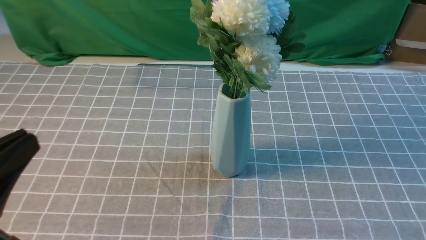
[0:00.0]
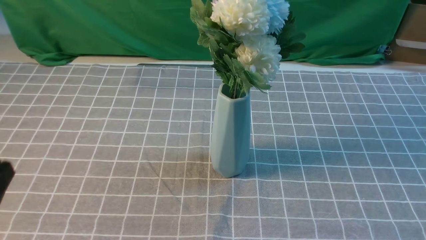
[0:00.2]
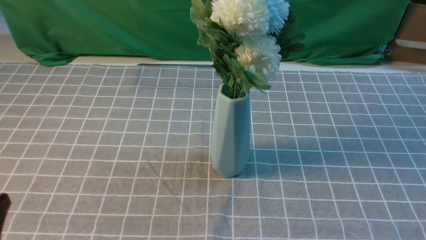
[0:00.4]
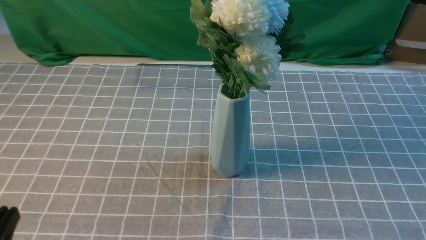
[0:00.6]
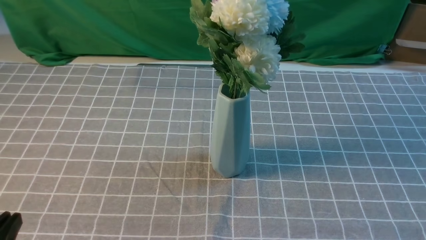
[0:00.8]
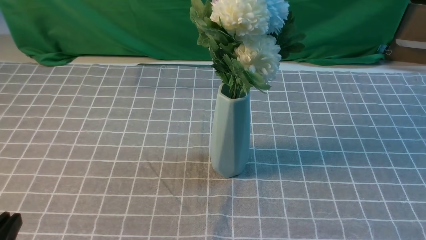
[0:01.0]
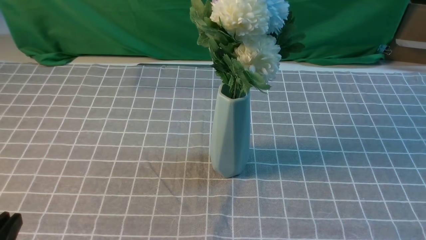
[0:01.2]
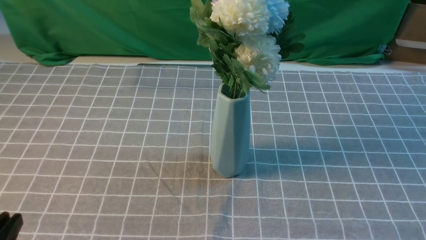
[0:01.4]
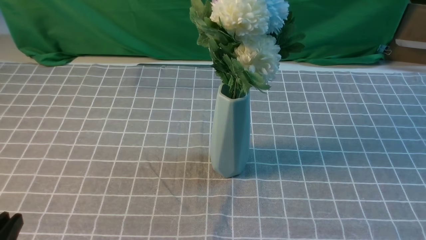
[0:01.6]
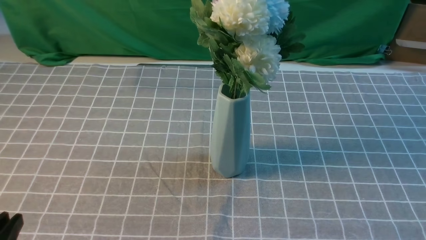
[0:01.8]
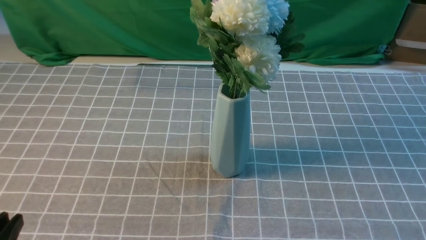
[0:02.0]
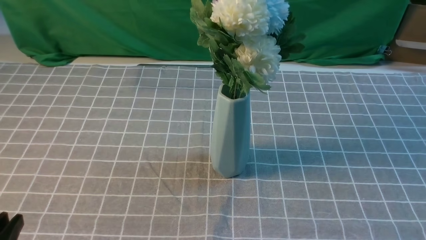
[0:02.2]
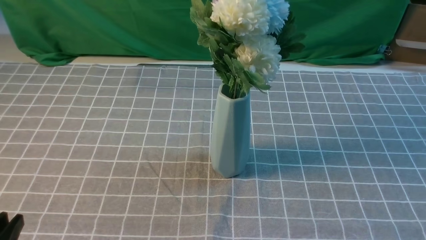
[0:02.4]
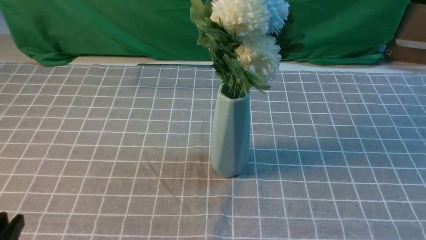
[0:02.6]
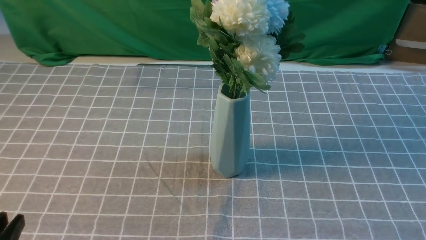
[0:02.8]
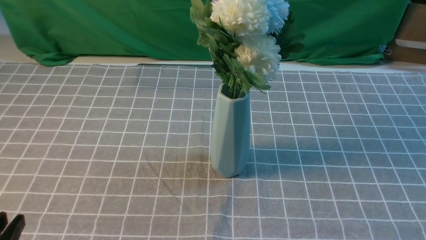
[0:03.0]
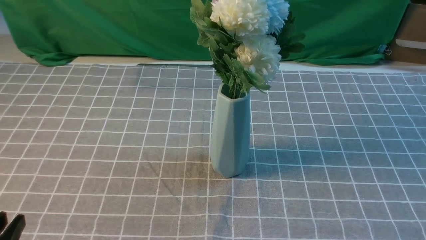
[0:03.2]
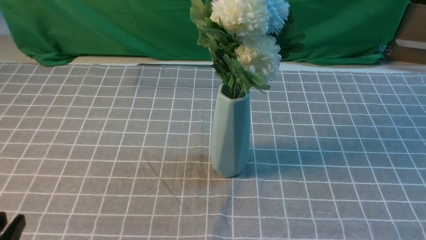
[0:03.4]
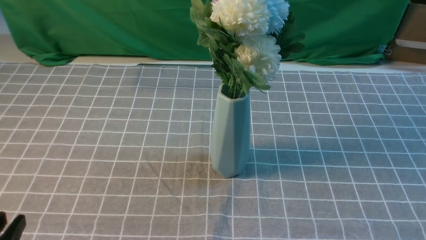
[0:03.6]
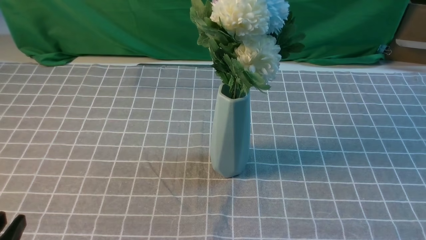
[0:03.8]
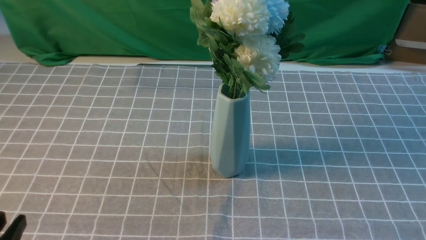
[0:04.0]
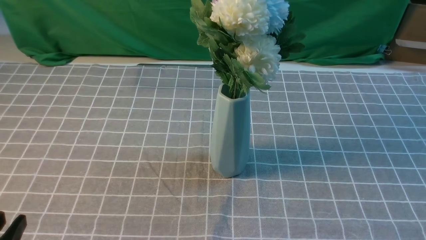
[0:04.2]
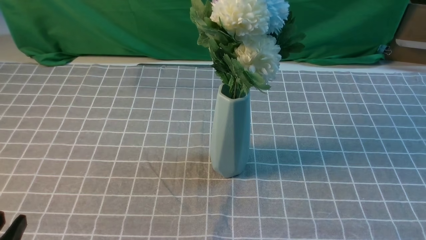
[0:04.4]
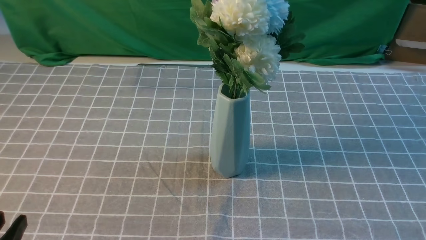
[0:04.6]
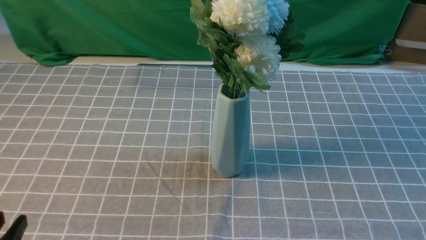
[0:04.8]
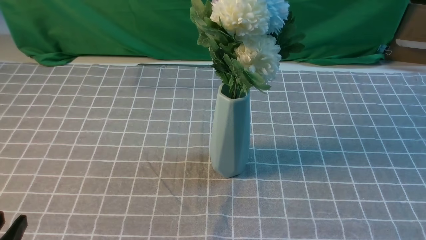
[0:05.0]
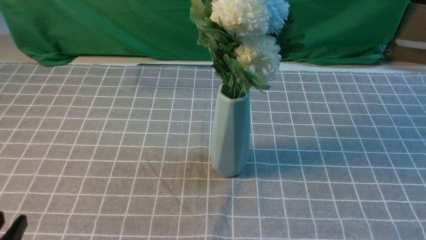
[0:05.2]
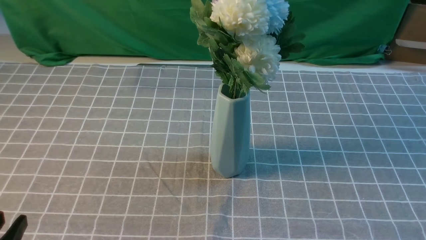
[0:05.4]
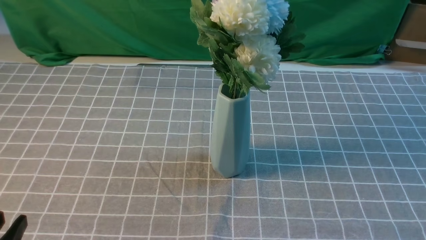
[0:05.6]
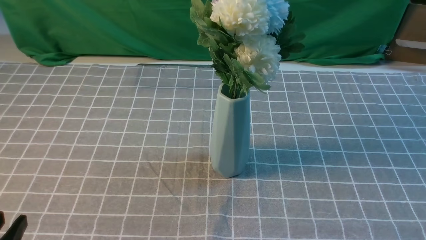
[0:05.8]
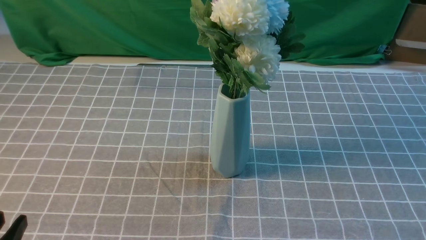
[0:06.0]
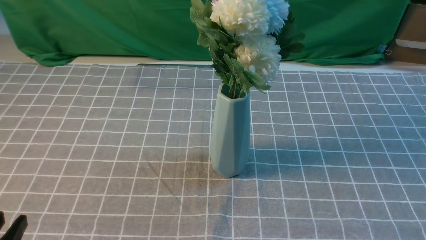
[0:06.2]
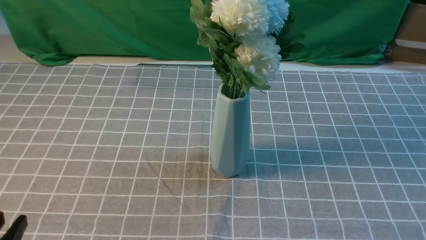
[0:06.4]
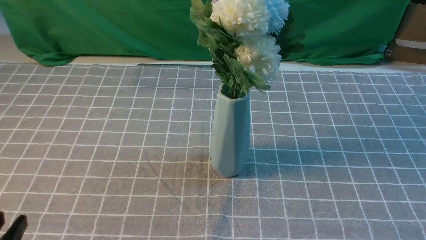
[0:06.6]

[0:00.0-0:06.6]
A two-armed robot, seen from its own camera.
Task of the whole recording: insert the flowers into the vase on the table with the grey tablecloth.
0:00.0 to 0:01.6: The left gripper is displaced downward by about 10 cm.
0:05.0 to 0:06.6: The two grippers keep their place.

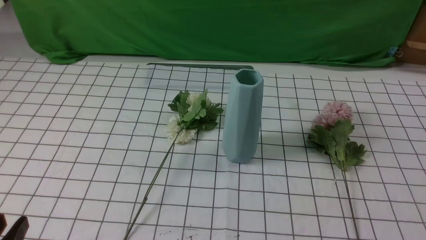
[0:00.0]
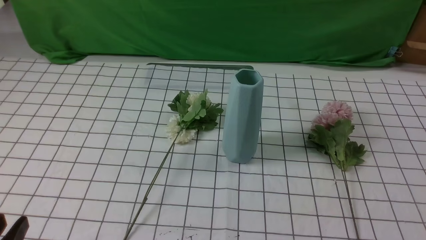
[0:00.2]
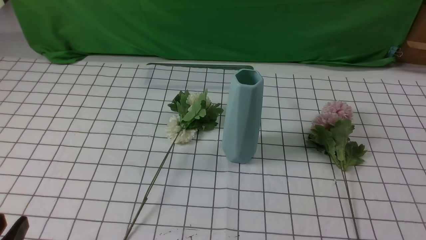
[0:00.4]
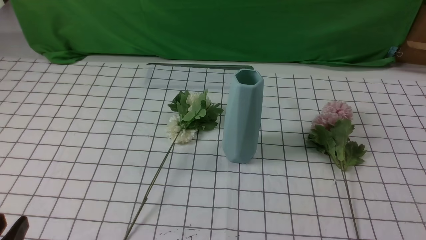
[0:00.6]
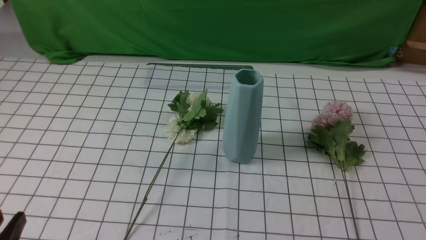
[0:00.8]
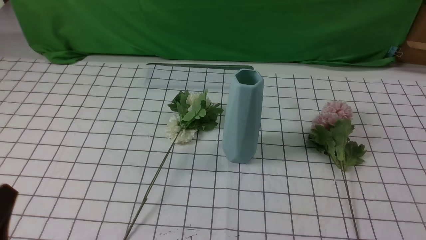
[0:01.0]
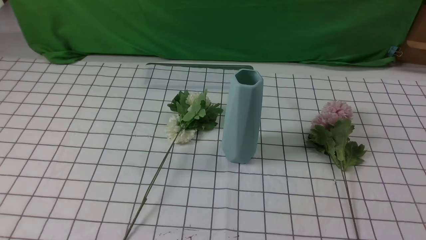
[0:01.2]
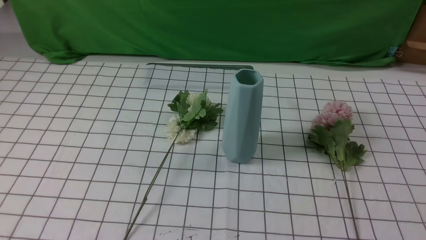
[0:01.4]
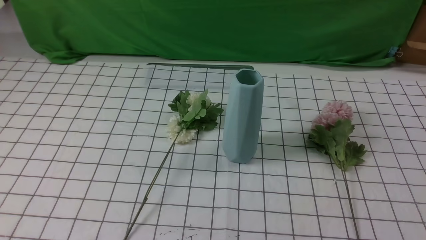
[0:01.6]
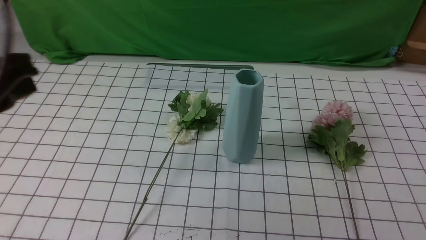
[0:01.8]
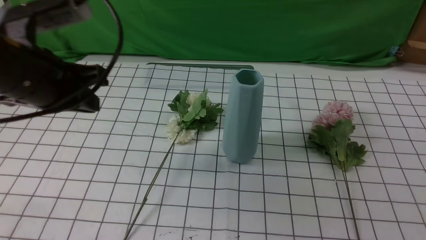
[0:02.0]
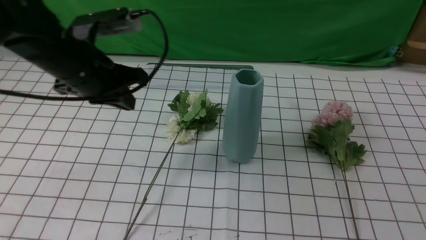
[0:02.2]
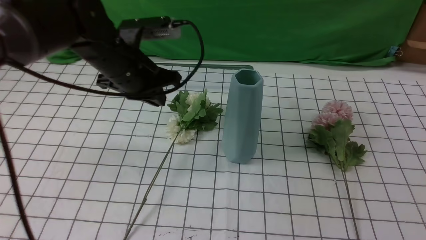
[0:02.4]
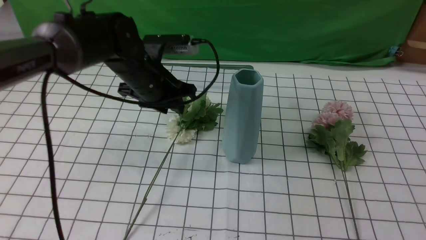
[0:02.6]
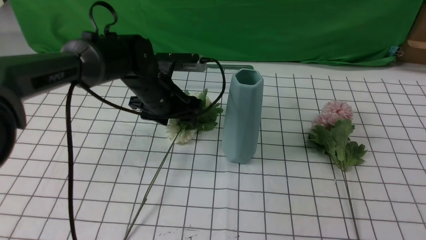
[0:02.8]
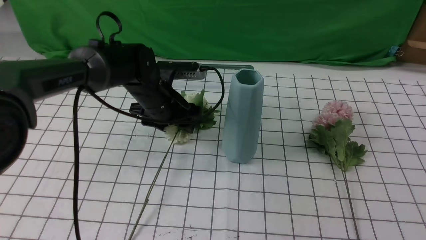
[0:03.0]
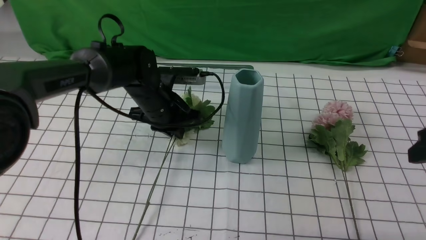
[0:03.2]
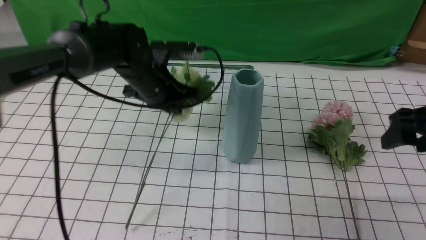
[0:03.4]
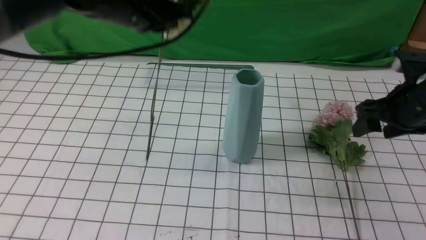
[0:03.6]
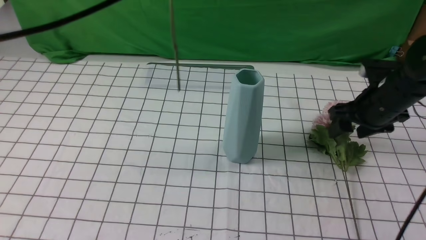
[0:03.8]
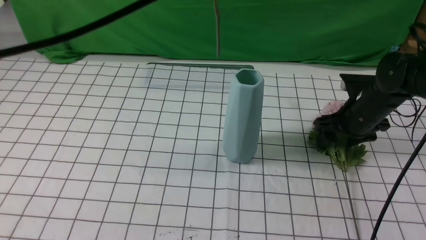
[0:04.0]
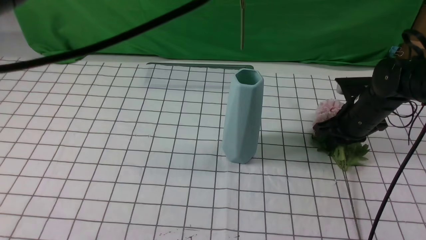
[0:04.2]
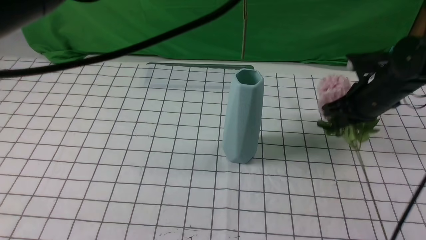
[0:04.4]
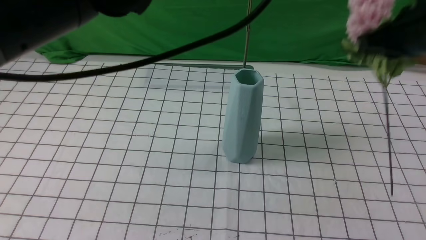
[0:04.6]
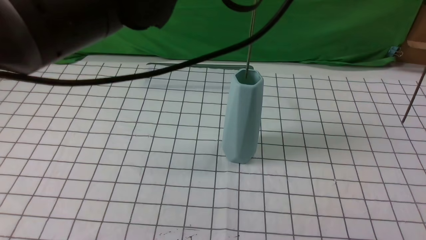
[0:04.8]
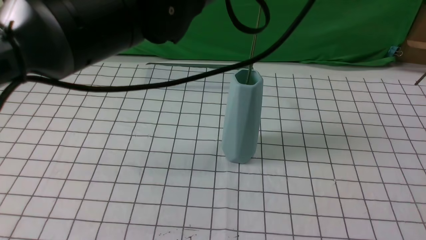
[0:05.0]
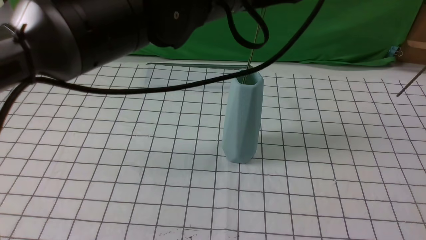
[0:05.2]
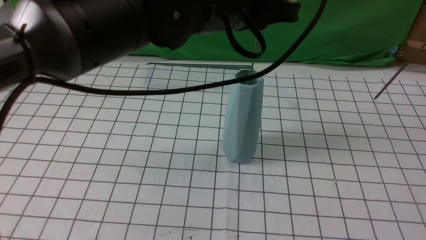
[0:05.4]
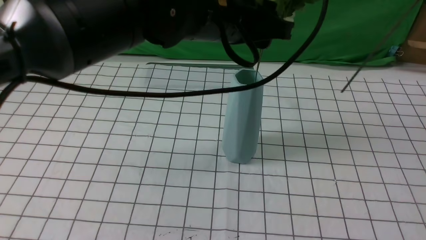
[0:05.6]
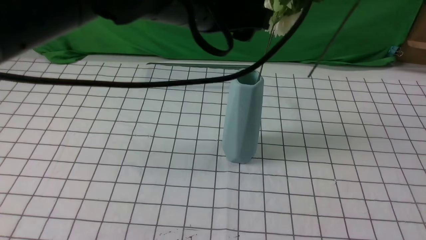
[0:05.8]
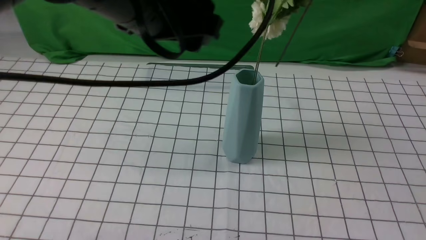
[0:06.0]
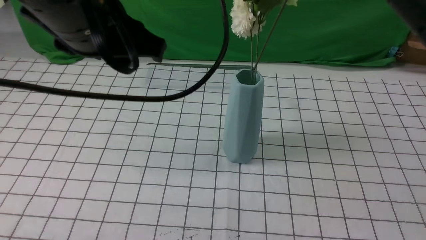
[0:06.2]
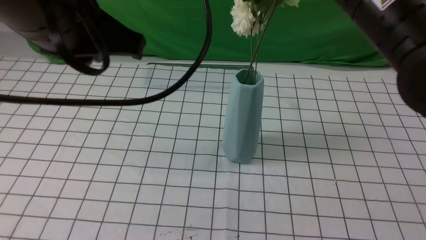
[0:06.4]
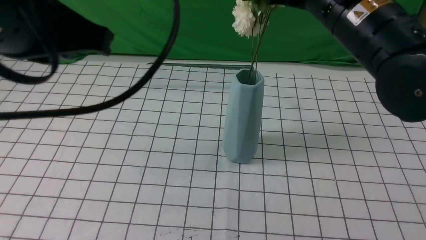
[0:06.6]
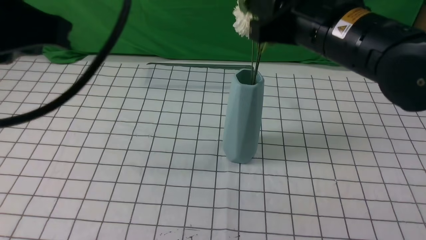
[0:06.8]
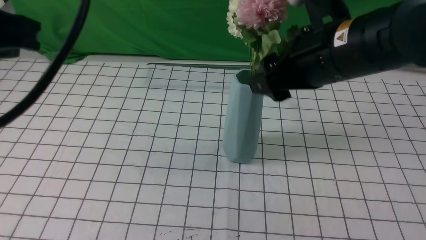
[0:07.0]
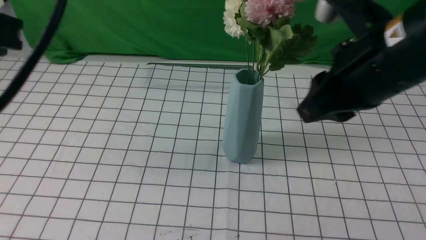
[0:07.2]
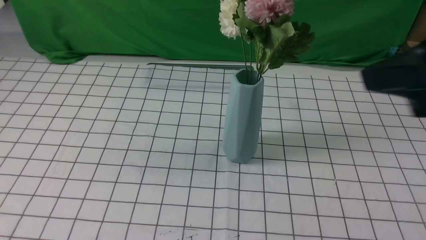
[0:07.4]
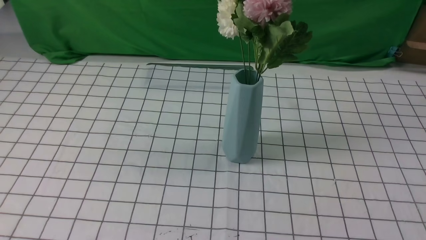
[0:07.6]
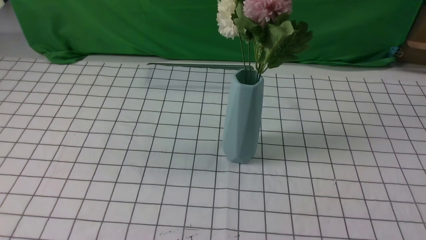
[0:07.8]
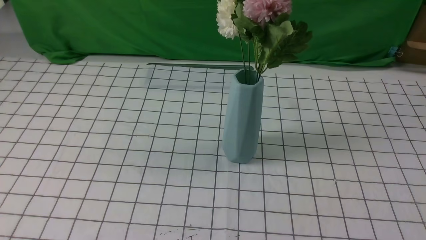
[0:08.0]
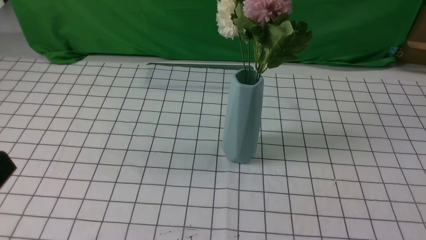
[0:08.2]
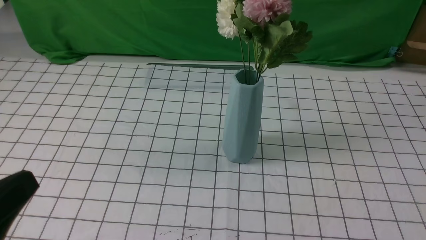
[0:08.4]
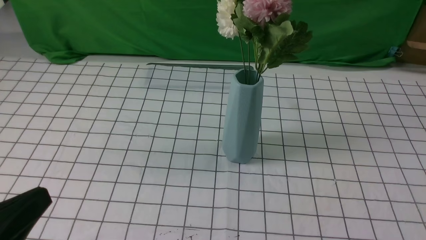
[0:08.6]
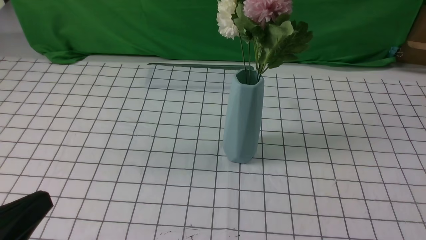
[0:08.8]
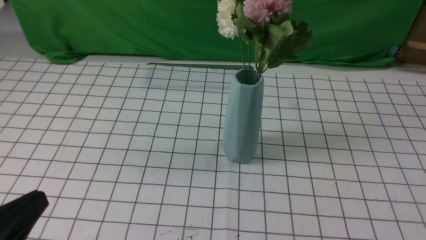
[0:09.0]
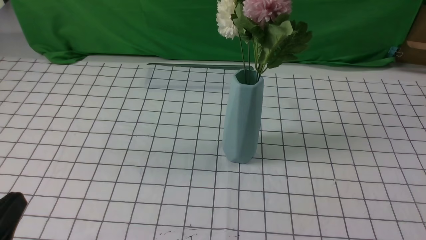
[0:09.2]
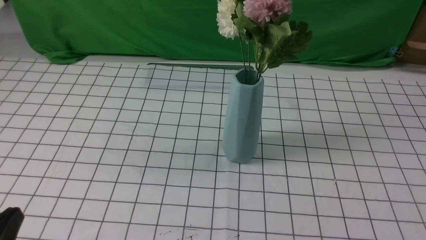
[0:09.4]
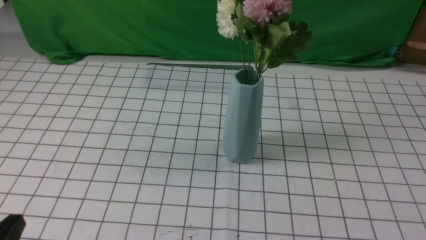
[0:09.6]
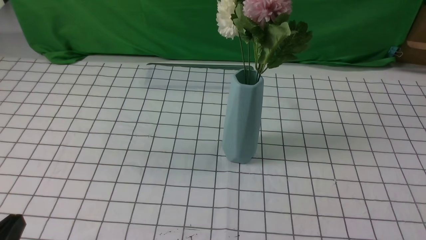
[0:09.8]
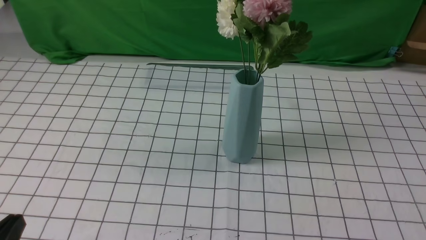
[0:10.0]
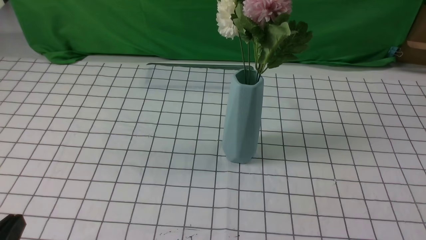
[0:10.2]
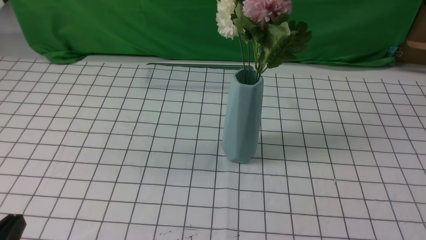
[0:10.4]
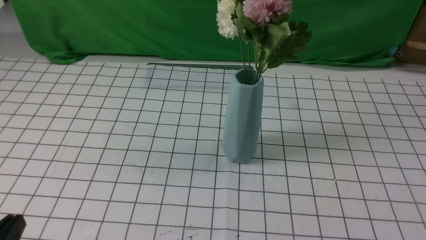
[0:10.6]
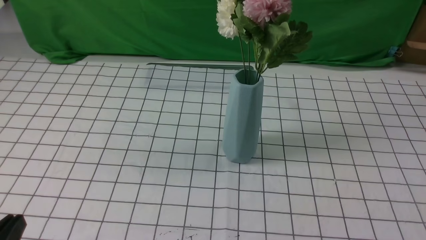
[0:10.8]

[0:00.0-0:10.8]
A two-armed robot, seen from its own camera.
Task of the whole recording: insert the flowers into the vase on the table with the white tablecloth.
Step, 0:00.0 to 0:07.2: Put the flowers in the vase with both hands.
0:01.6 to 0:03.0: The right gripper shifts some 15 cm forward and upward, and opens; the left gripper moves forward, downward and to the right, approximately 40 cm, and opens its fingers.
0:03.0 to 0:04.6: The right gripper heads forward and upward, covering some 15 cm, and closes its fingers. Meanwhile the left gripper heads upward and backward, covering about 30 cm, and closes up.
0:04.6 to 0:06.2: The right gripper shifts approximately 15 cm to the left, backward and upward. Meanwhile the left gripper travels to the left and backward by some 10 cm, and opens its fingers.
0:06.2 to 0:07.8: The left gripper shifts approximately 25 cm backward and to the left, and closes up; the right gripper is displaced backward and to the right by about 25 cm, and opens, then closes again.
0:07.8 to 0:09.2: The left gripper is displaced downward by roughly 20 cm.
